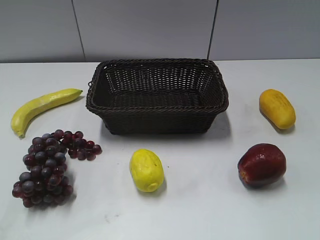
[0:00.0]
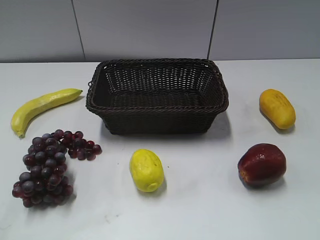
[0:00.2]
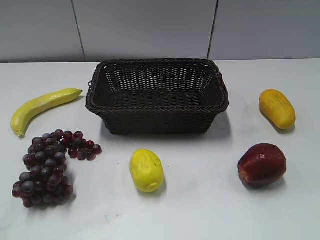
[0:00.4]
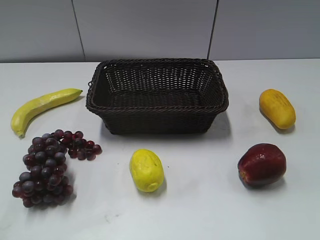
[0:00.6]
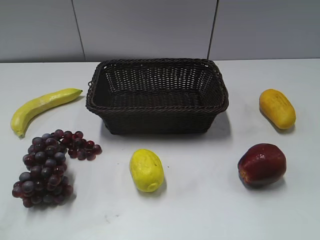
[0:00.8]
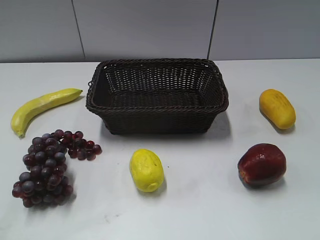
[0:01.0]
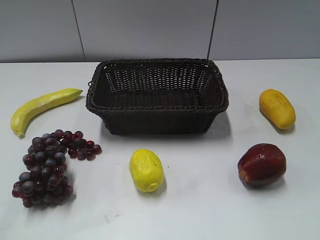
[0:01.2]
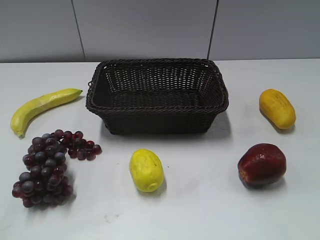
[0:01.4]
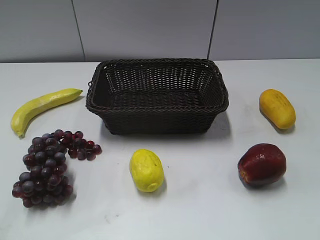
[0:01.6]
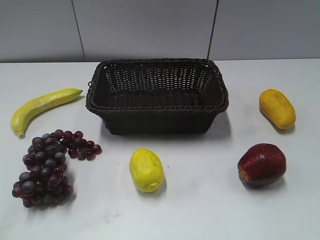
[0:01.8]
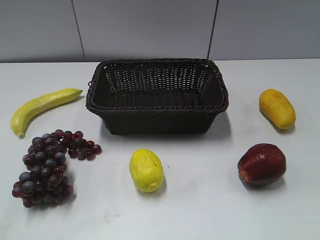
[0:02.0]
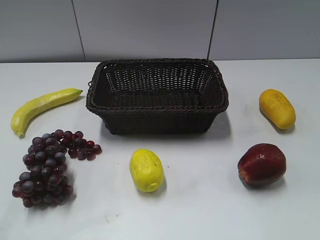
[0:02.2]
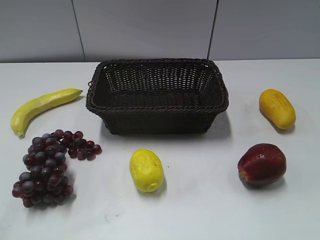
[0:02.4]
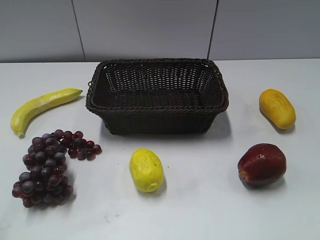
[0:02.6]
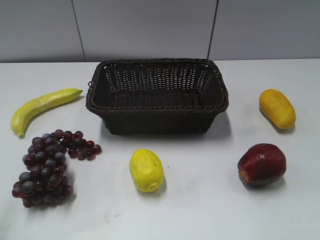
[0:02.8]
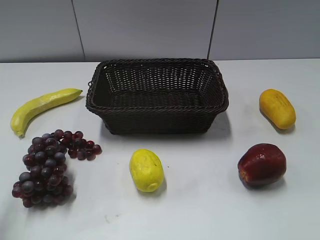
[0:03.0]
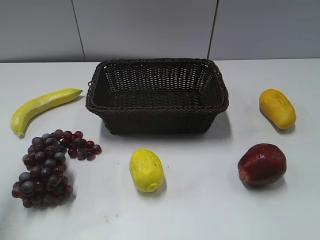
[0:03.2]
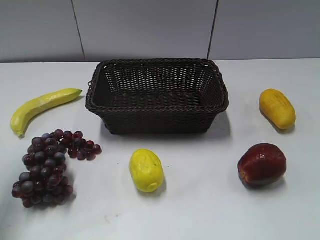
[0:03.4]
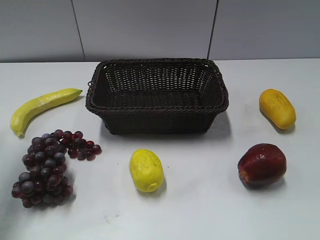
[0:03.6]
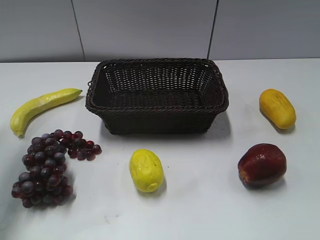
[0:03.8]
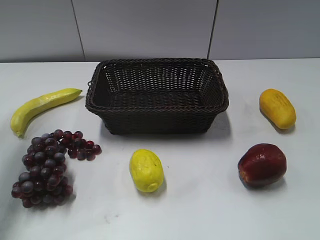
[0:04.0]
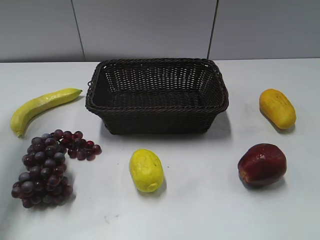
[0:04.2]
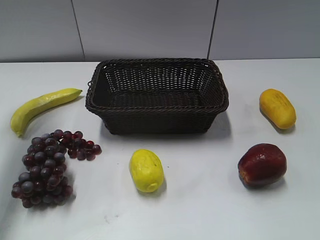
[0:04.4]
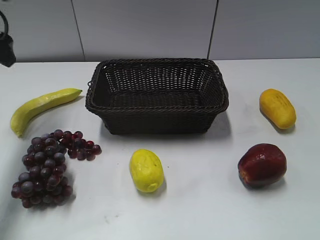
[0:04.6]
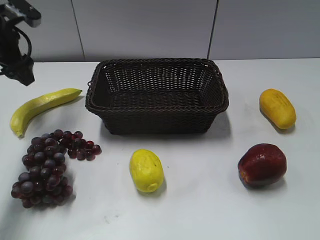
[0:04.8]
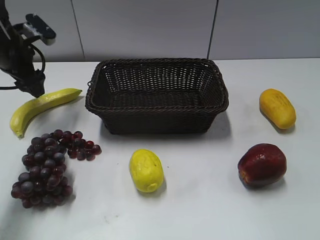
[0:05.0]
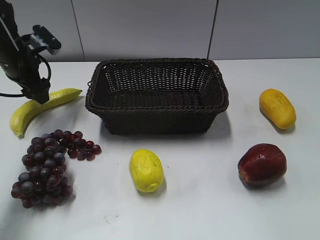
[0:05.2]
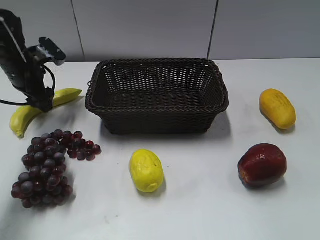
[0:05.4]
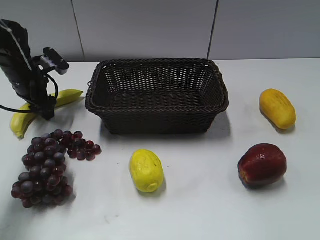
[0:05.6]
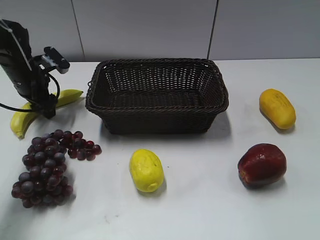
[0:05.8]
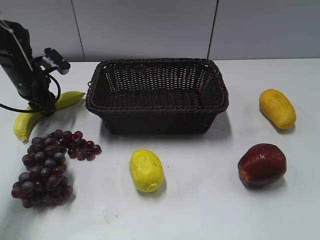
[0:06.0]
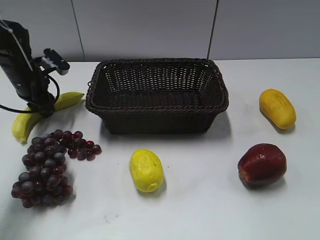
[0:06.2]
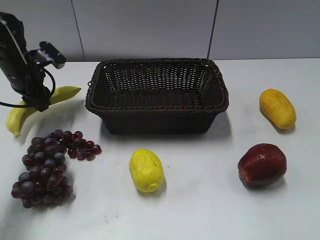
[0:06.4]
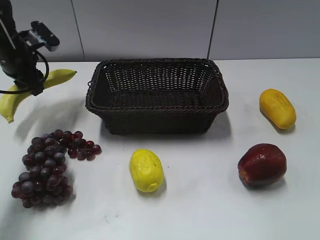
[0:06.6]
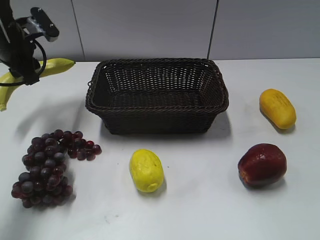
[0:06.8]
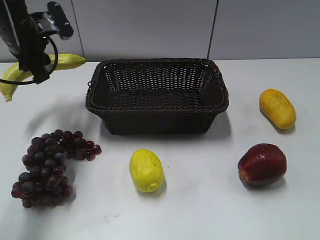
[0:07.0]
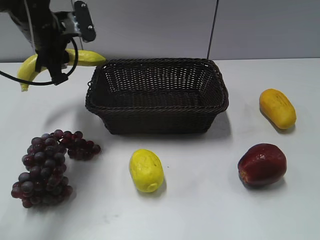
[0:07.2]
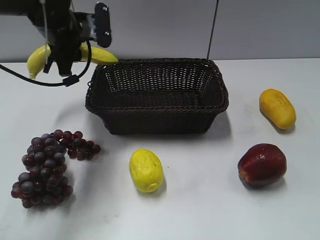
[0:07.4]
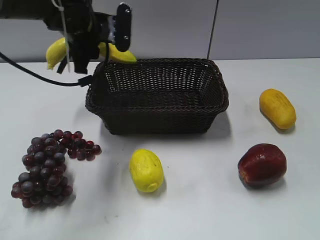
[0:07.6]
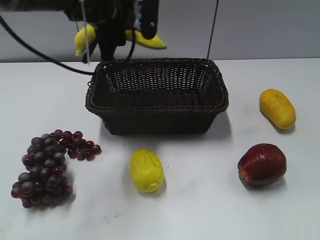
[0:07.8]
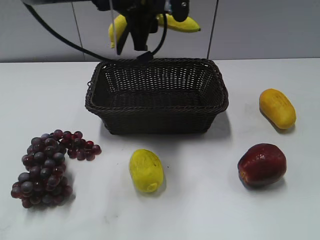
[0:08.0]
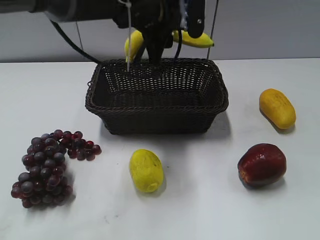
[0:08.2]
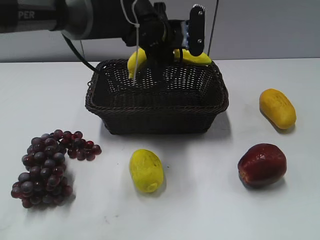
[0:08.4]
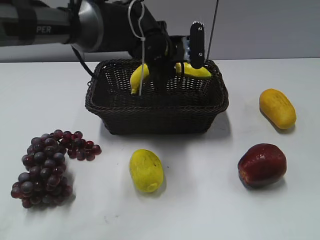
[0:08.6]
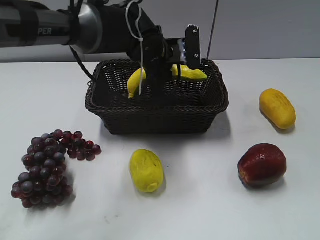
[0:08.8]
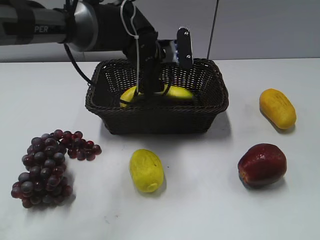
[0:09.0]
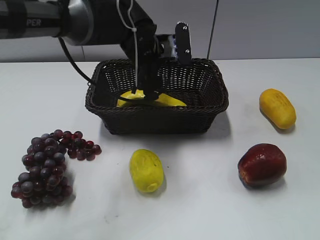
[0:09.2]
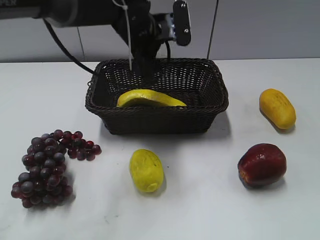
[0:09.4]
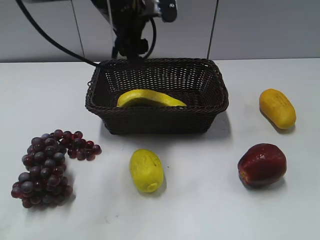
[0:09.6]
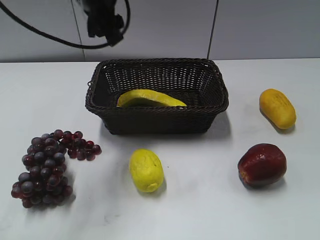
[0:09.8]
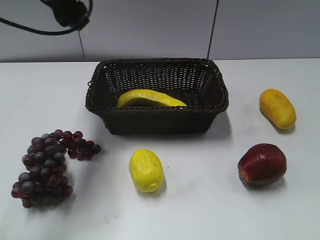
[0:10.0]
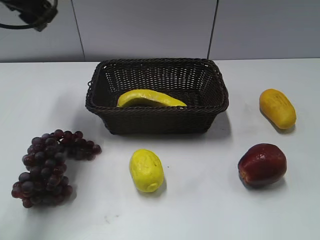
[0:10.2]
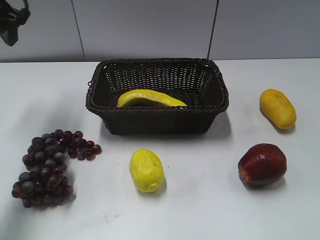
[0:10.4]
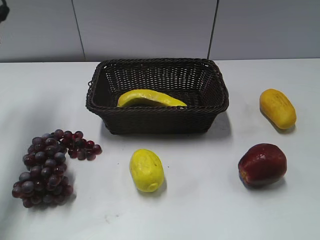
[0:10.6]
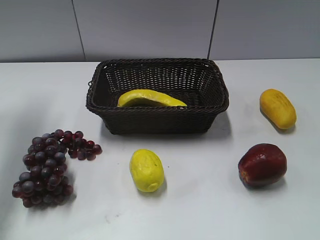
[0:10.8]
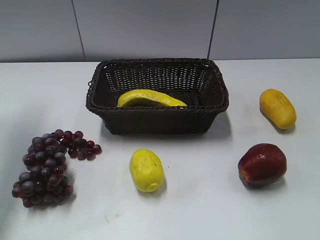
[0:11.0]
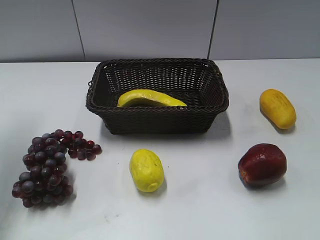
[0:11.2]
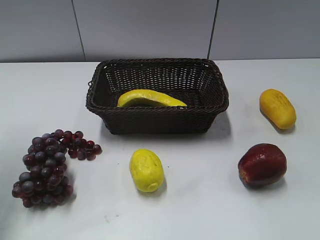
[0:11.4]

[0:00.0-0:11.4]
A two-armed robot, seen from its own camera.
Step, 0:03.6 to 0:06.0: Grasp the banana with left gripper.
Step, 0:06.2 to 0:09.2: Place the banana in the basket with left gripper.
0:02.8 to 0:04.2: The left gripper shifts approximately 25 cm forward.
0:04.2 to 0:05.6: The left gripper heads downward, covering approximately 20 cm.
0:05.6 to 0:07.2: The left gripper is displaced upward and to the right by roughly 15 cm, and closes its fingers.
0:07.2 to 0:08.6: The left gripper moves to the right, about 20 cm.
0:08.6 to 0:10.0: The left gripper shifts approximately 20 cm to the left and upward, and opens its fingers.
0:10.0 to 0:11.4: The left gripper moves to the left and backward, some 20 cm.

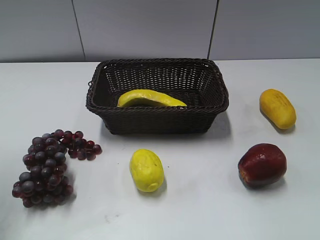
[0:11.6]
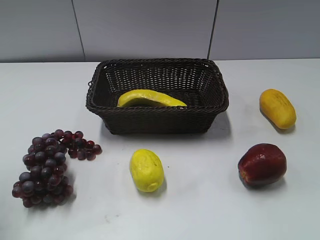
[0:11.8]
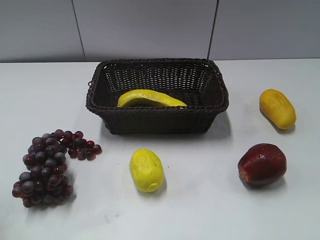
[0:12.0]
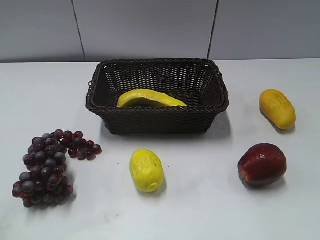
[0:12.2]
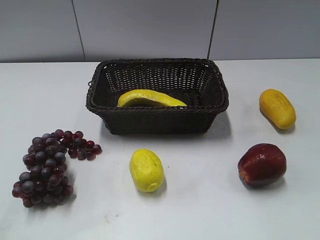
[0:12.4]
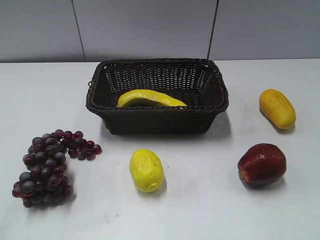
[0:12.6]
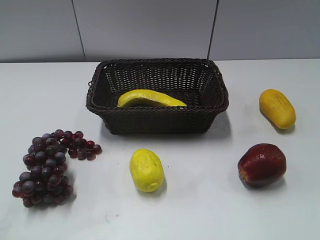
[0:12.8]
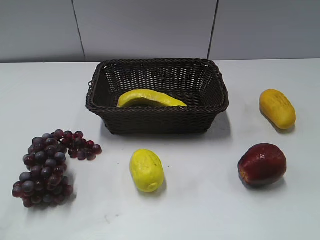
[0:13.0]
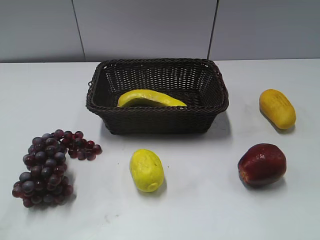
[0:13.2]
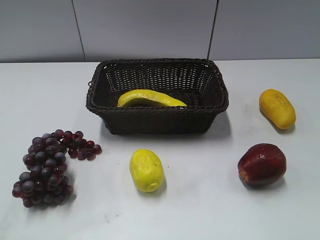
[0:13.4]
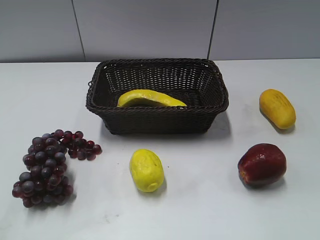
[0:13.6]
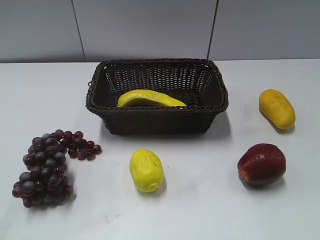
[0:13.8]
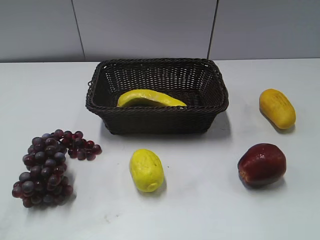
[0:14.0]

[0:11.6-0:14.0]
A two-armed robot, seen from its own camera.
0:11.6 to 0:12.8: The left gripper moves backward and downward, approximately 20 cm.
